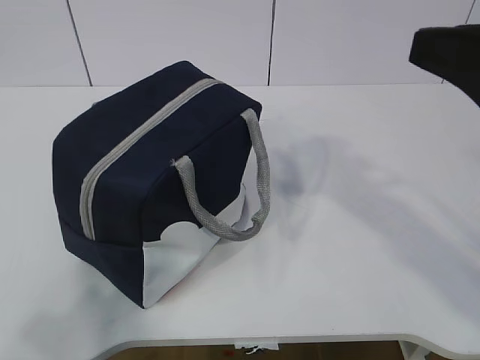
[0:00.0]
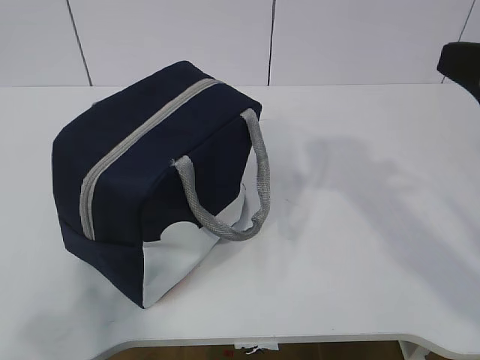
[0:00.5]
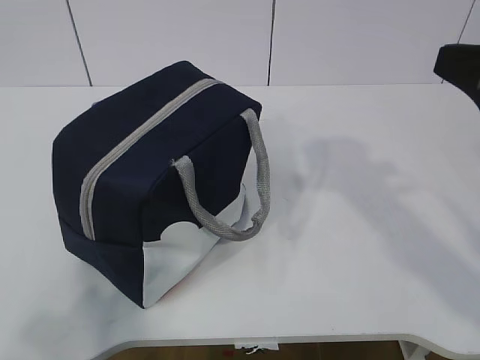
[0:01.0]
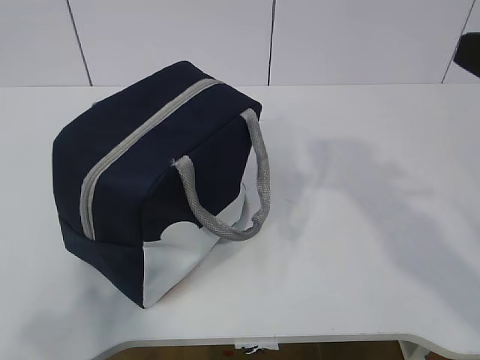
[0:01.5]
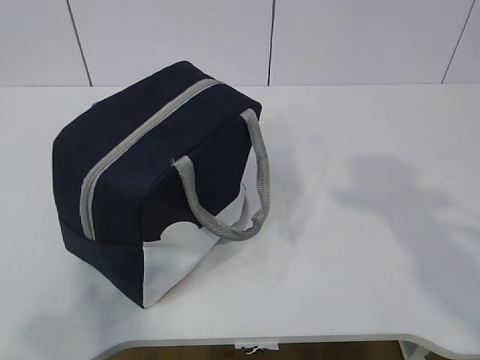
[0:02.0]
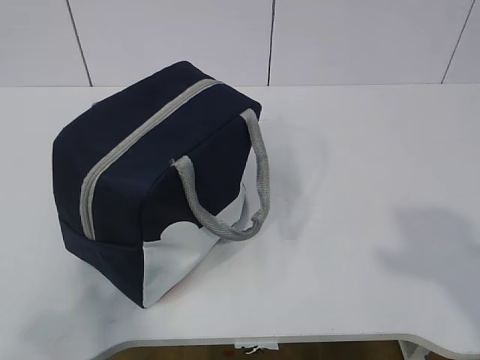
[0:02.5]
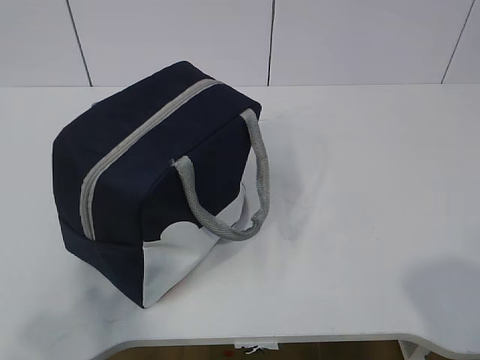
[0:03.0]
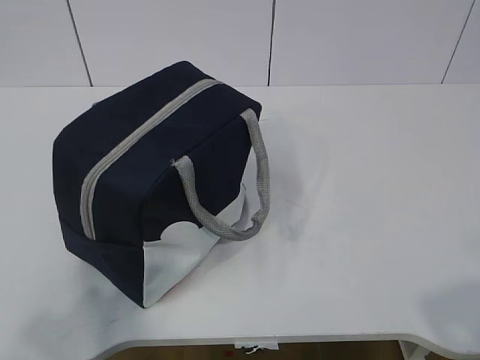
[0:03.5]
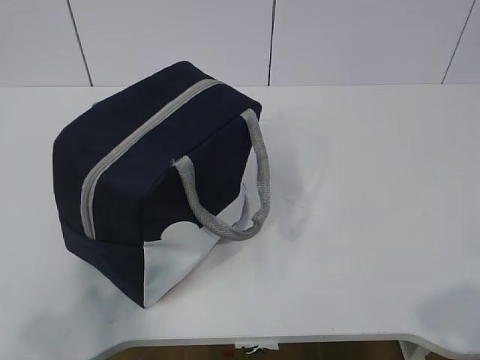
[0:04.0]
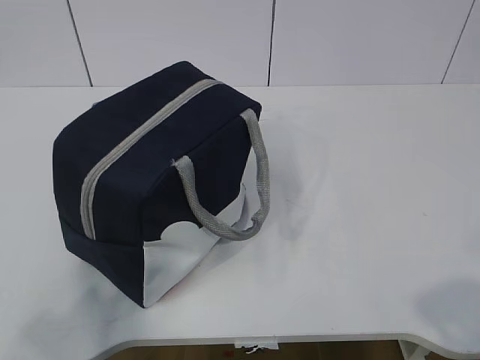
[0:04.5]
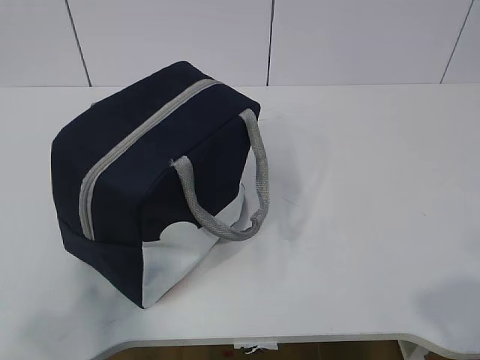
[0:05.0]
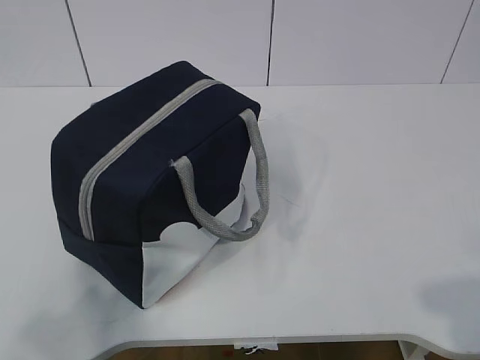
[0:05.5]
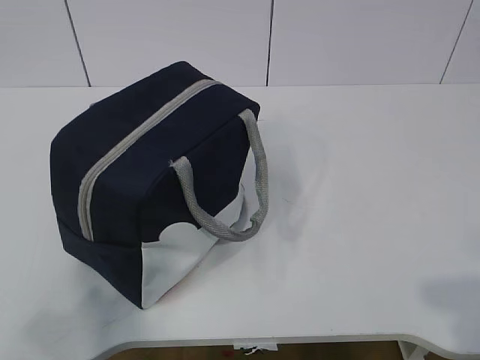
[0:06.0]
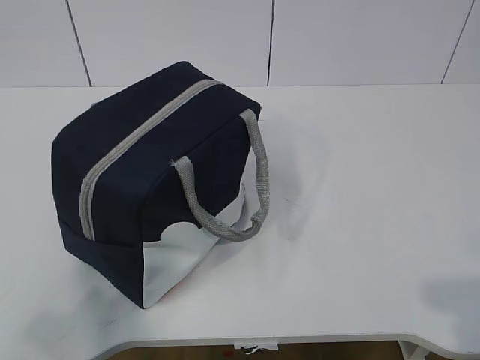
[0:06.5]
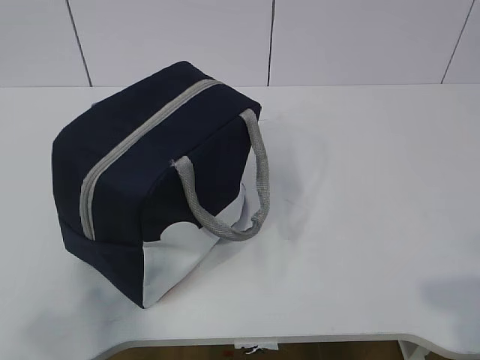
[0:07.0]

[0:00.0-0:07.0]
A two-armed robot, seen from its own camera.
0.0 to 2.0 s: The right gripper moves approximately 5 cm.
2.0 to 3.5 s: The right gripper shifts about 15 cm backward.
3.5 to 5.0 s: There are only small adjustments of the grippers.

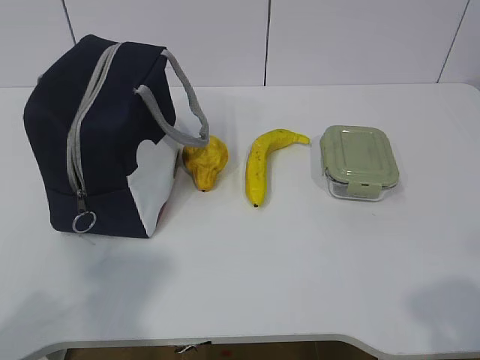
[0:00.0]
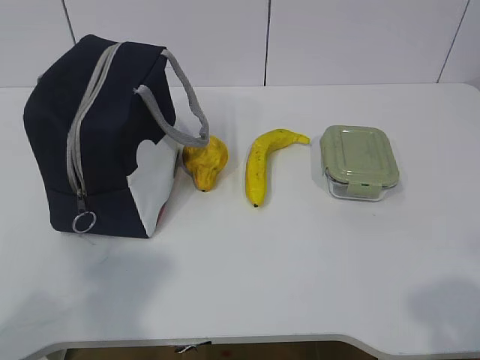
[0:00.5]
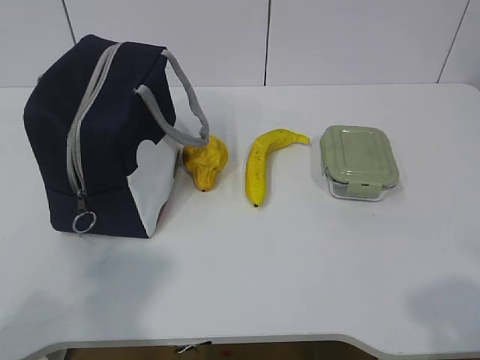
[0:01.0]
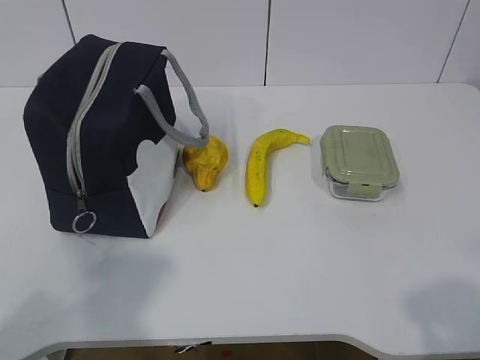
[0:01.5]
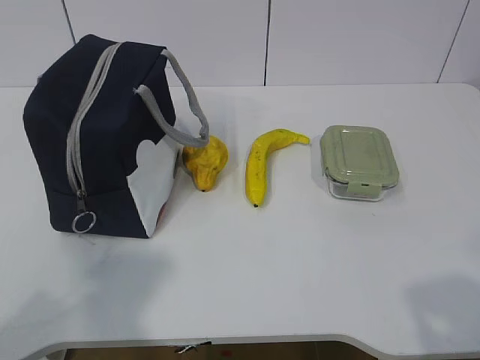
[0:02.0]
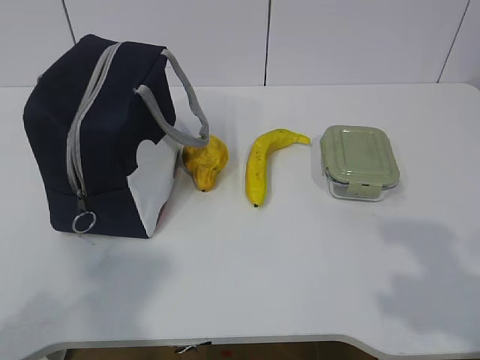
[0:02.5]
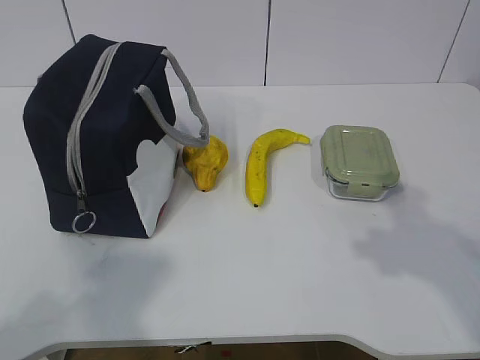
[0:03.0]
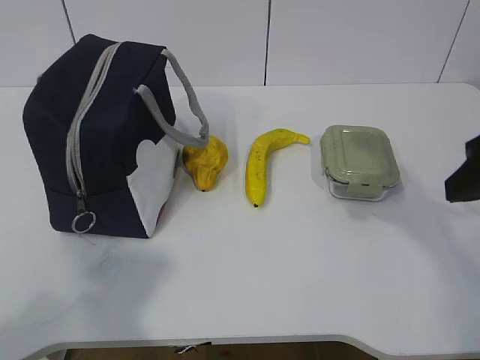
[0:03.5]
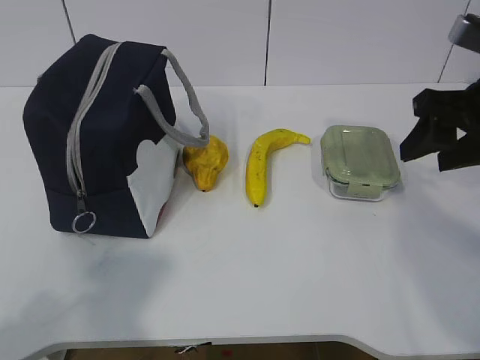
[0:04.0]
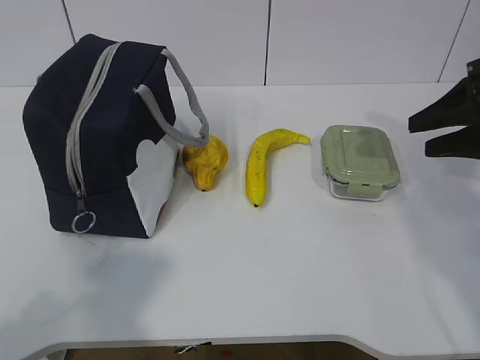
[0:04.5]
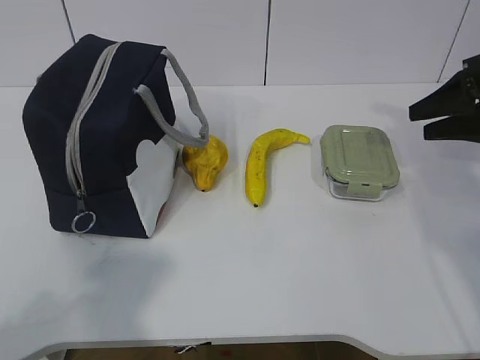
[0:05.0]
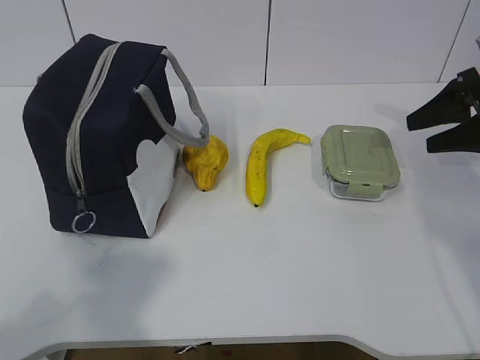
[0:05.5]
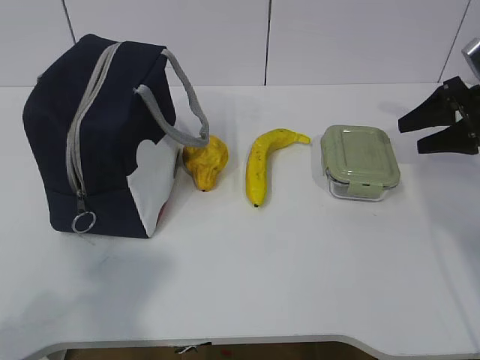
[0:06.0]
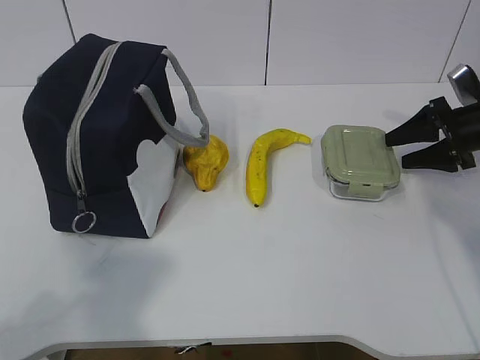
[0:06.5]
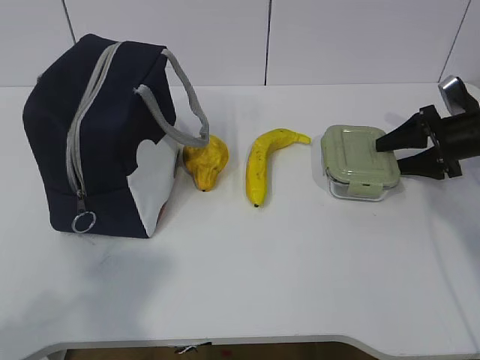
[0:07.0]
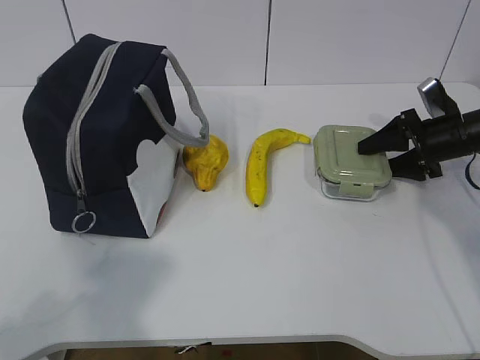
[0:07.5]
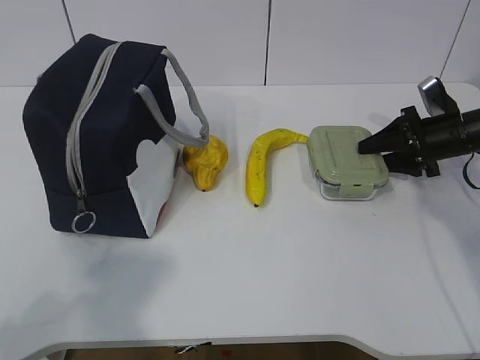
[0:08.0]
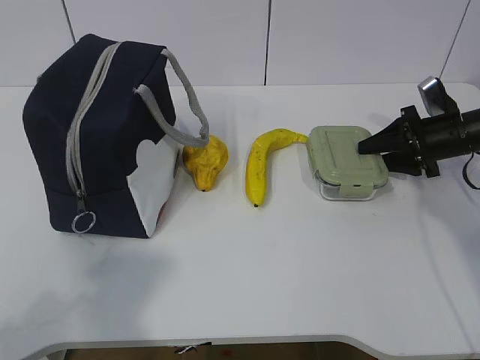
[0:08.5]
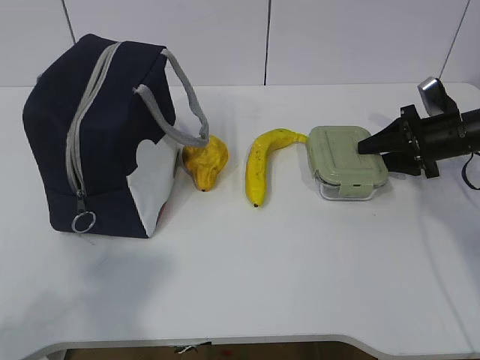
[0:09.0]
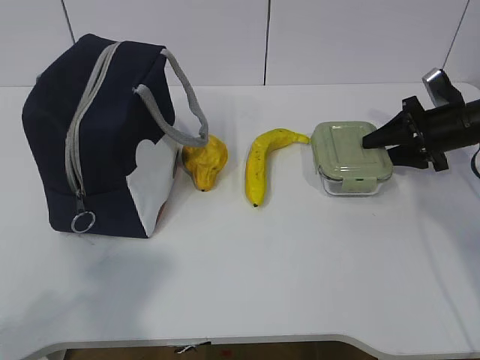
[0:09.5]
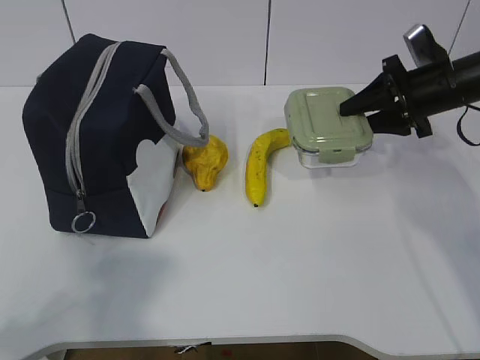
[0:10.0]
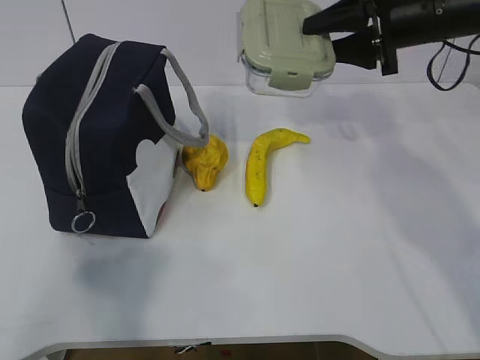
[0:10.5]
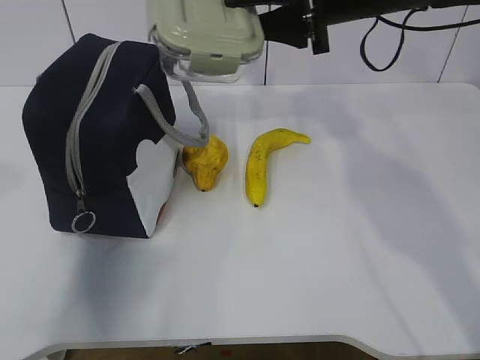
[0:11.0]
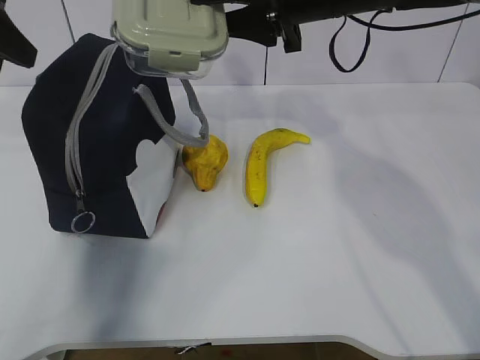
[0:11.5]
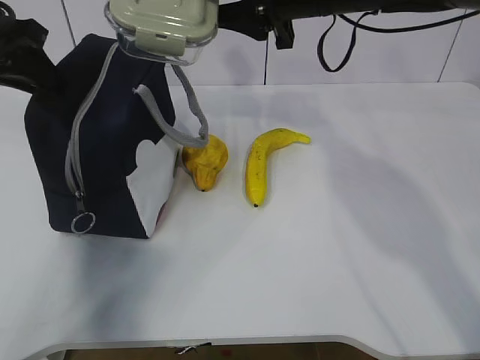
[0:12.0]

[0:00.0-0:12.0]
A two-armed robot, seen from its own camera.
Step, 0.0 to 7.0 s: Grab the lunch box with your right hand.
2.0 to 4.0 s: The right gripper is displaced forward by about 30 cm.
4.0 to 6.0 s: The right gripper goes roughly 20 cm forward, to the right and downward.
6.0 to 8.0 s: The right gripper travels downward by roughly 5 cm.
8.0 to 10.0 s: The right gripper moves upward, about 10 cm.
10.0 to 12.0 s: The right gripper moves to the left and upward, roughly 25 cm; the left gripper moves forward, some 35 cm.

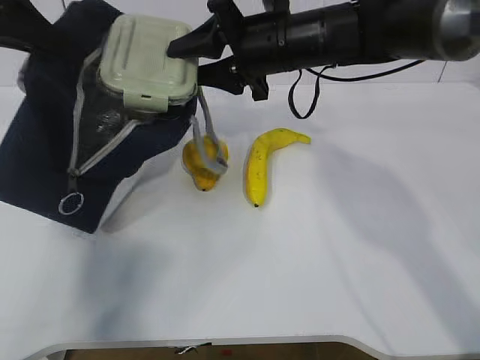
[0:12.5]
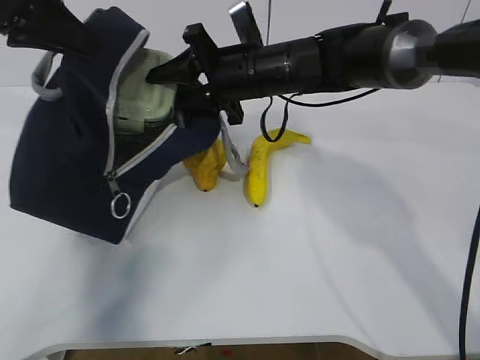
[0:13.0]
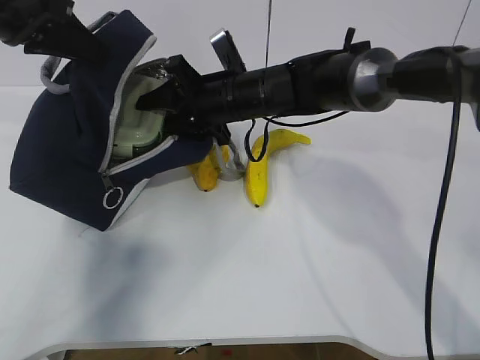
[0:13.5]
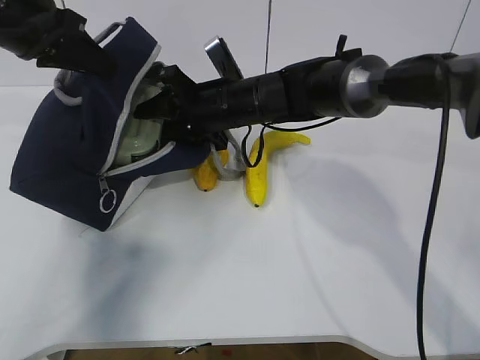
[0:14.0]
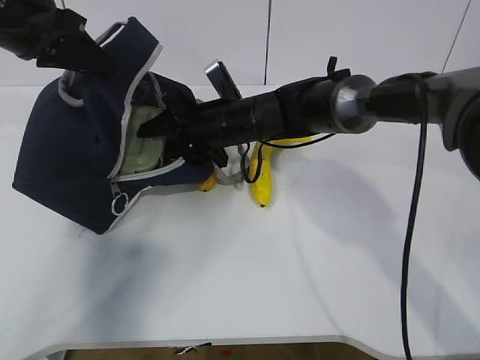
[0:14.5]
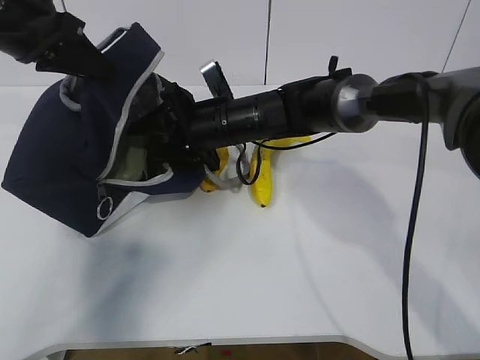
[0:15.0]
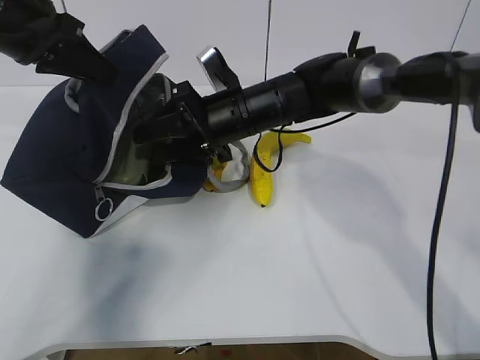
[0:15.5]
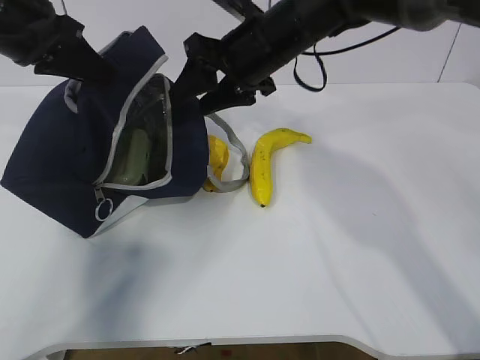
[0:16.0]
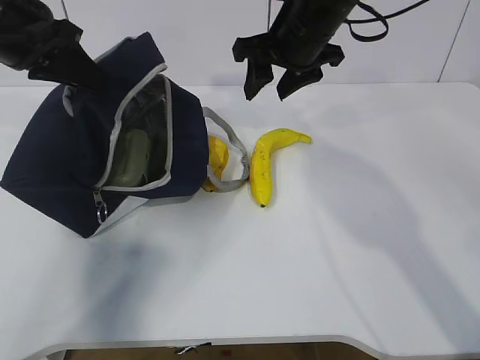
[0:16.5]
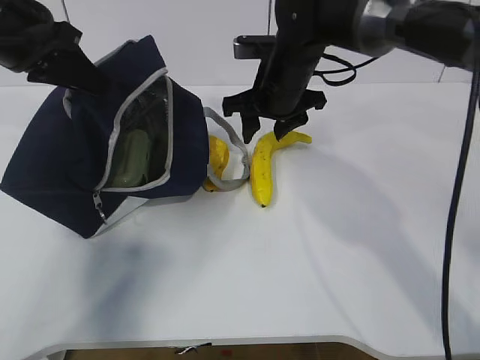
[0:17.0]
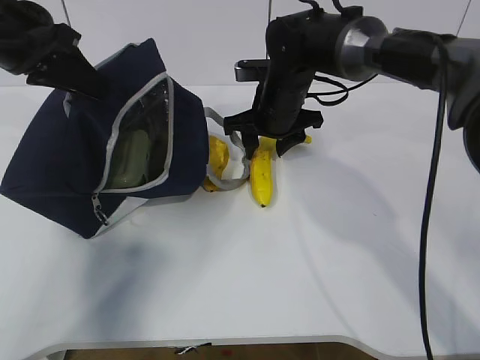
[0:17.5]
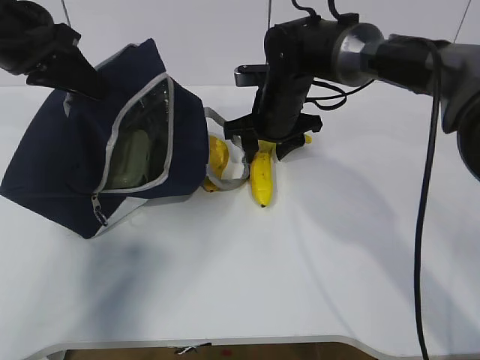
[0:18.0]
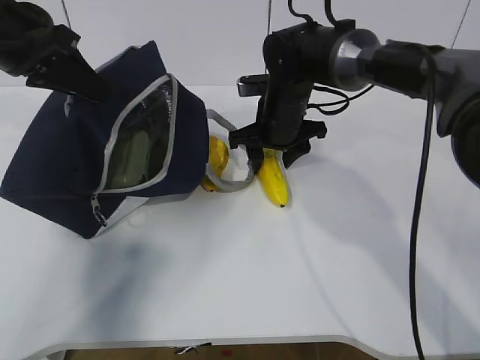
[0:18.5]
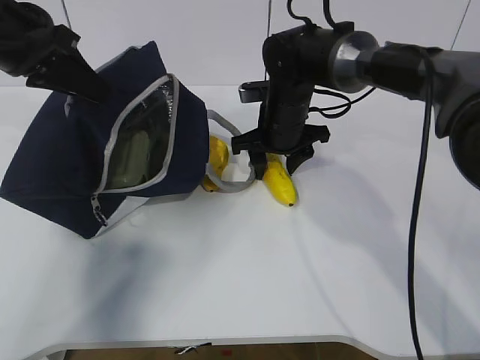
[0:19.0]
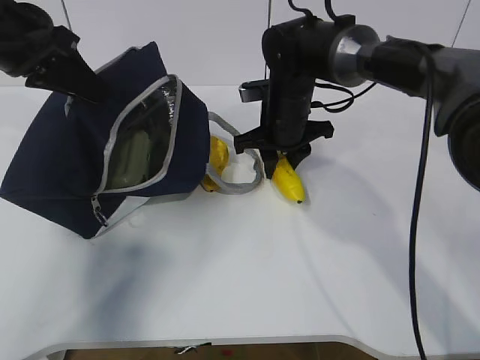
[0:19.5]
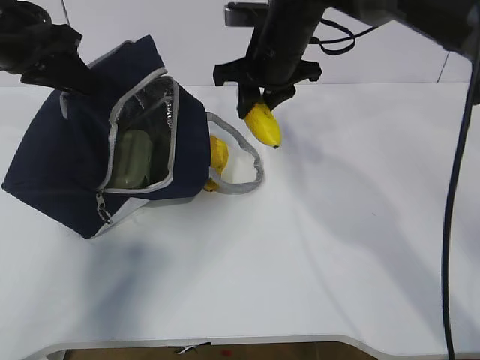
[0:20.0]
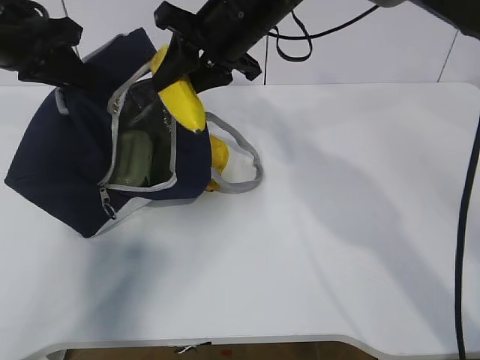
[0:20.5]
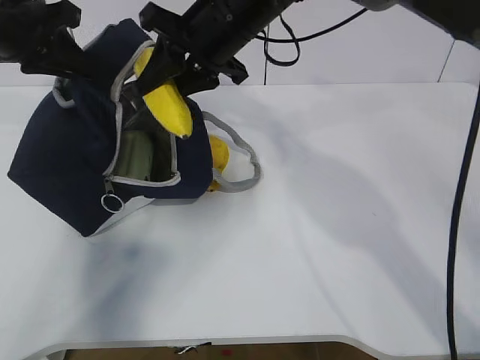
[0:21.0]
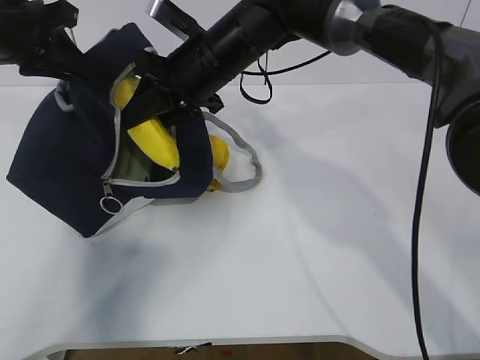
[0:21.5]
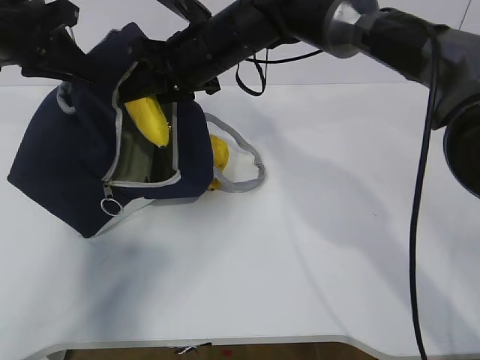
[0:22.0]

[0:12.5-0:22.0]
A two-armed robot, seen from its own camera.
Step, 12.5 to 16.0 s: Grab the banana with your right hand.
Step, 16.5 to 19.5 s: Place it into the bag with your right hand.
12.5 to 14.5 s: The right gripper is displaced downward and to the left by approximately 15 cm, while the left gripper changes place by about 5 cm.
14.5 to 16.5 s: The right gripper goes approximately 15 cm upward and to the right.
16.5 to 18.0 s: The right gripper travels downward by about 10 cm.
18.0 to 20.0 s: The right gripper travels upward by roughly 10 cm, and closes its fingers.
20.0 to 22.0 s: The right gripper travels to the left by approximately 10 cm.
